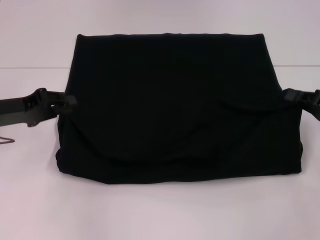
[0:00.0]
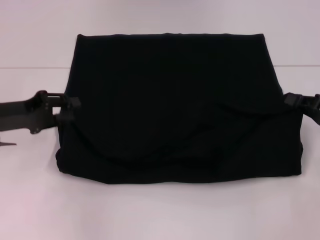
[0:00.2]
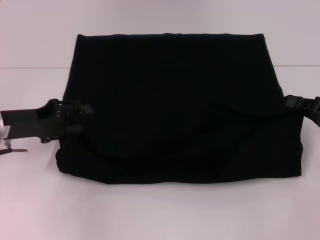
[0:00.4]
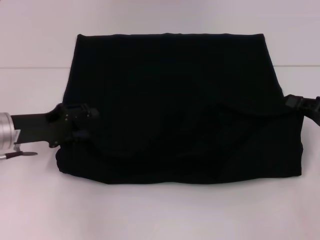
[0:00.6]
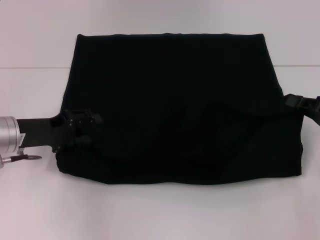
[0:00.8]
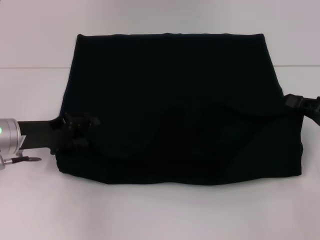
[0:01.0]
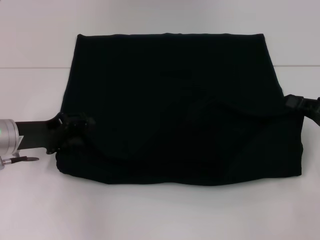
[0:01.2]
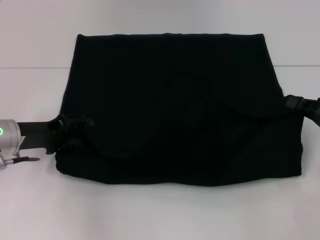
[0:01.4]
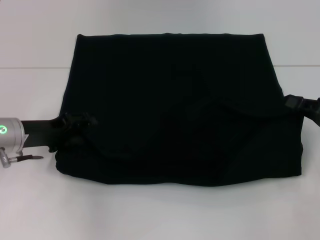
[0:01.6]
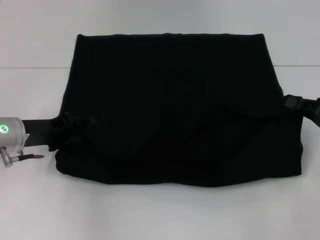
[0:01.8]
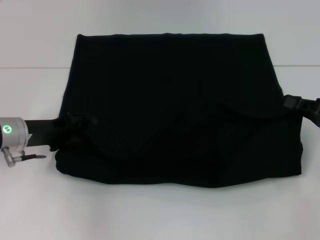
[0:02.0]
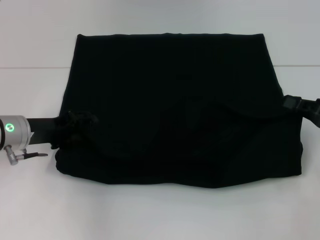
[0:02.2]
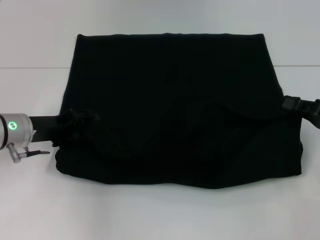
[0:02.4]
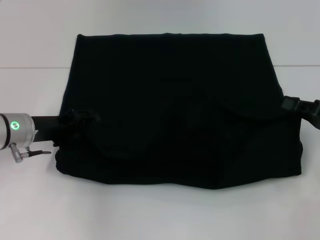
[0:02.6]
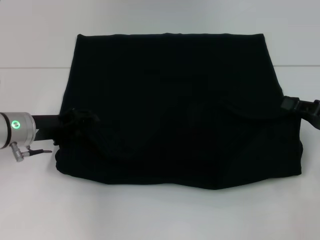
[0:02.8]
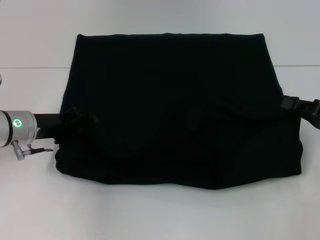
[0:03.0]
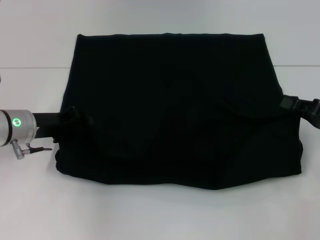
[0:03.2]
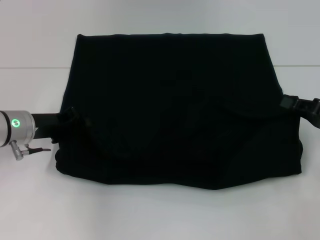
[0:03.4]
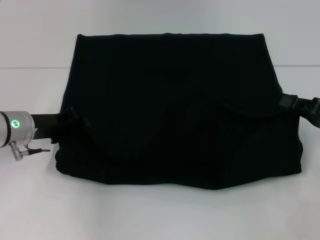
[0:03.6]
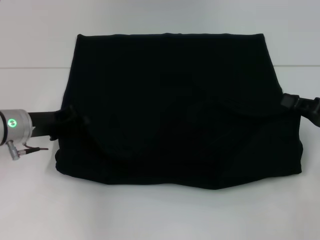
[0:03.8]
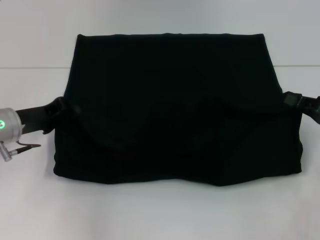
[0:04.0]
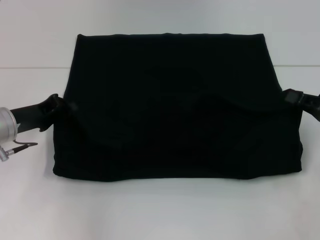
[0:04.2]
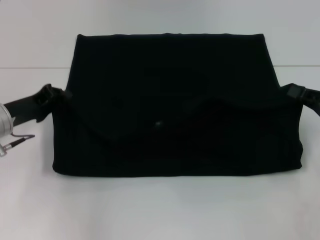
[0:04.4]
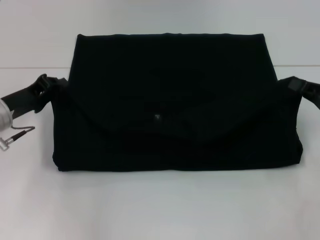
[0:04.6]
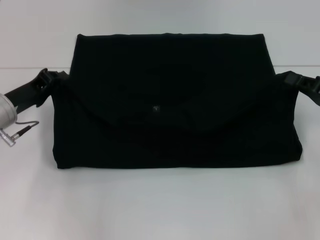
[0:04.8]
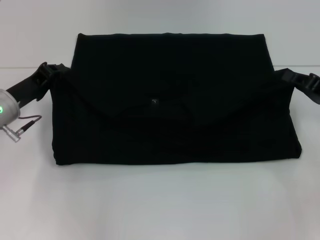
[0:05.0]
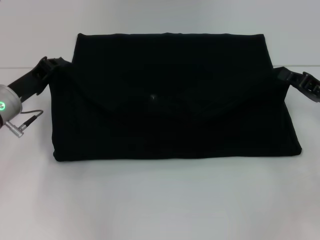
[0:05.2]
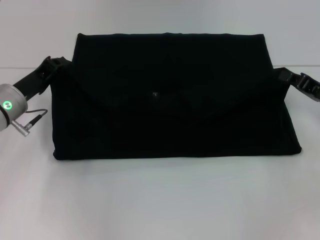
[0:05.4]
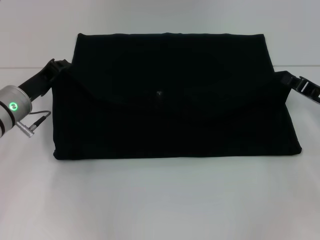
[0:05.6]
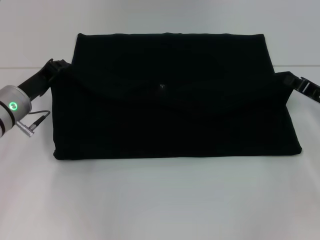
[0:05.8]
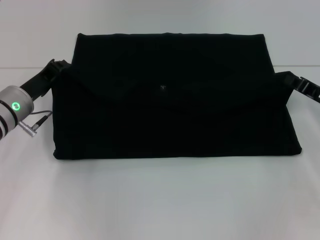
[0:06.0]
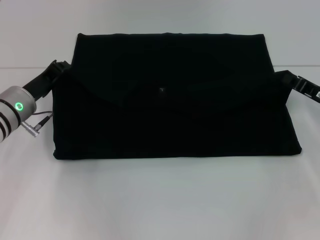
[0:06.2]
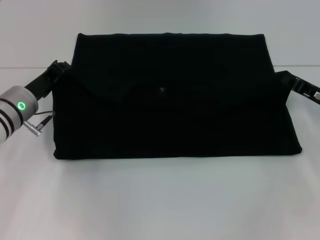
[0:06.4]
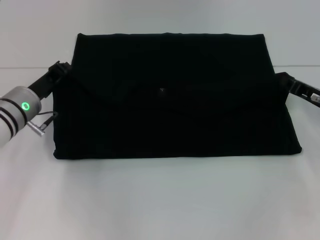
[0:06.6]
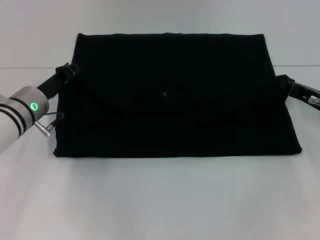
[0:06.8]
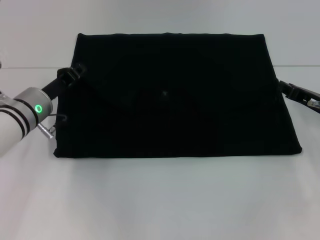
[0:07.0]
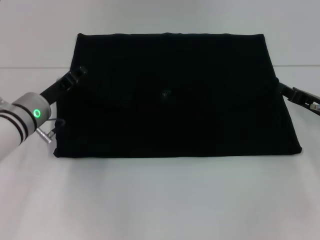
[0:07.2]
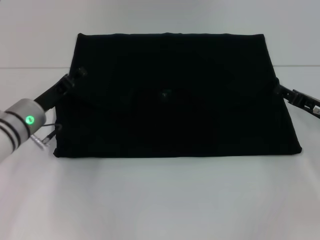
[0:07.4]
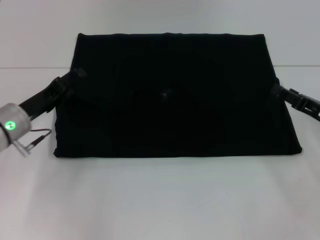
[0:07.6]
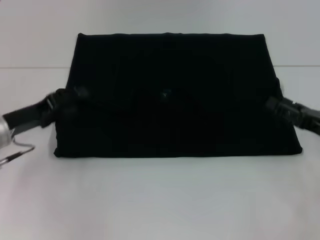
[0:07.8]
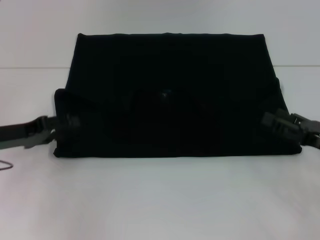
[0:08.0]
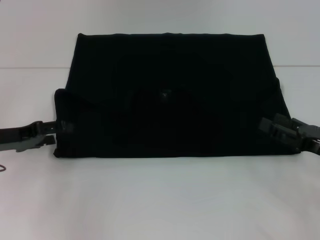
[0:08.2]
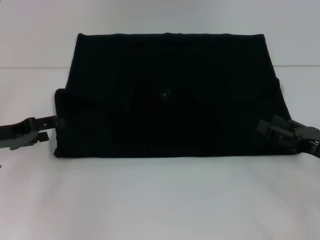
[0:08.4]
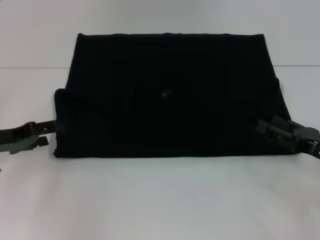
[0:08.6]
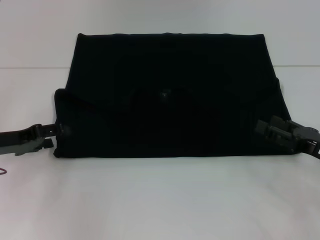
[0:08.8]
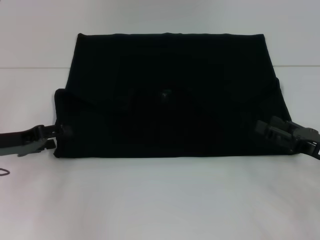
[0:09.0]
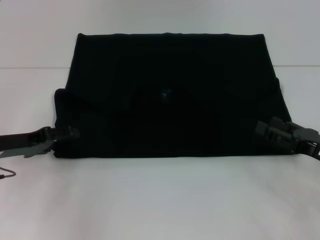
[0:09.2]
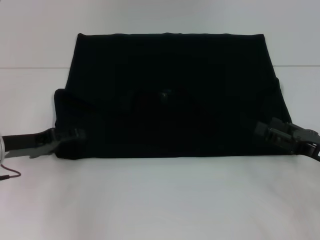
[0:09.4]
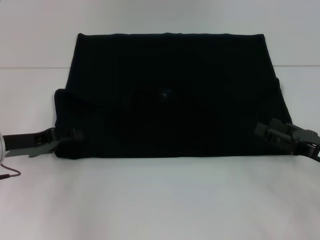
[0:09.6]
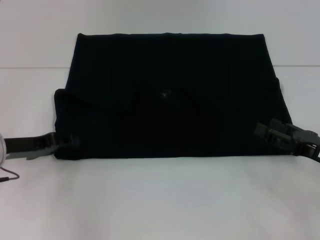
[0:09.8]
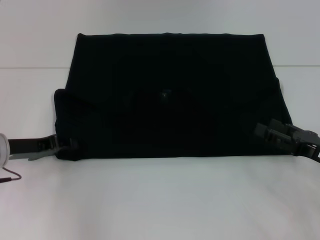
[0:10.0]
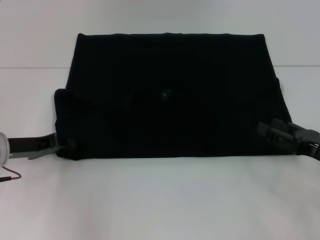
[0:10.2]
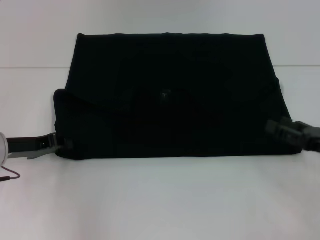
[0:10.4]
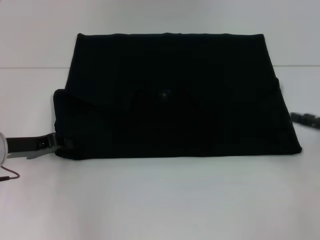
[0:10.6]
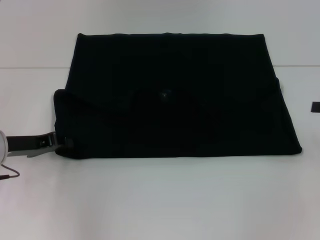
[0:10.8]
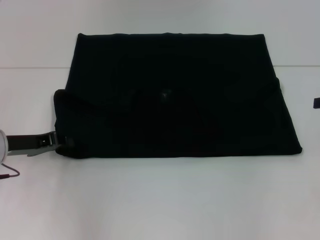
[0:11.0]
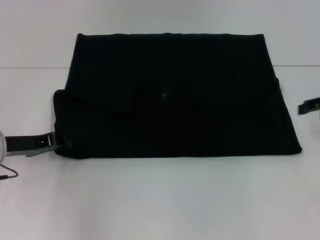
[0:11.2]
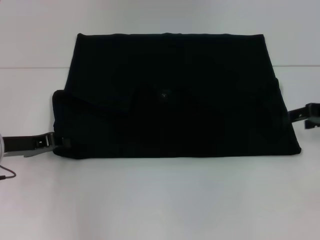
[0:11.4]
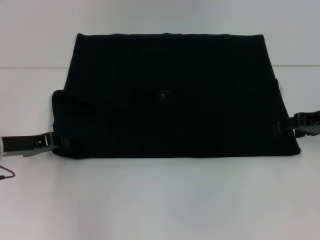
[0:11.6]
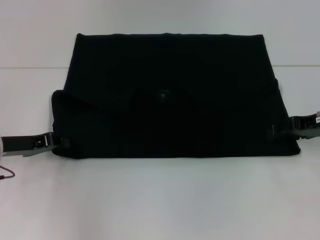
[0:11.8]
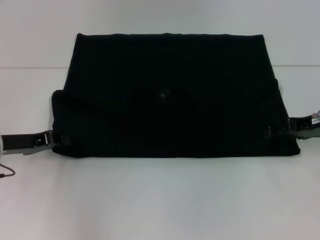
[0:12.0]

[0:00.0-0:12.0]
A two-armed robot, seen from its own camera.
Step, 0:00.0 to 0:07.6: Fold the clothes with your left hand.
Step, 0:00.0 to 0:07.6: Fold the clothes with your right hand.
0:00.0 to 0:01.6: The left gripper changes place by roughly 5 cm, and opens its fingers.
0:01.6 to 0:03.0: The grippers stay close to where they were, moving slightly.
0:03.0 to 0:04.4: The left gripper closes.
0:04.4 to 0:06.0: The right gripper shifts by some 5 cm.
0:06.0 to 0:07.6: The left gripper opens up; the right gripper opens.
0:07.6 to 0:09.0: The left gripper heads to the left, covering approximately 5 cm, while the right gripper goes some 5 cm backward.
0:09.0 to 0:10.4: The left gripper closes its fingers.
0:10.4 to 0:12.0: The right gripper goes about 10 cm forward and upward.

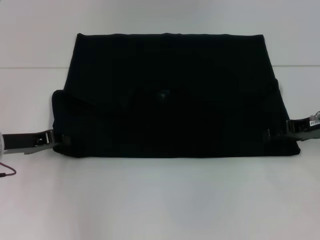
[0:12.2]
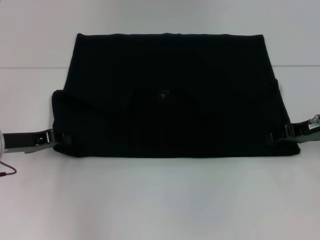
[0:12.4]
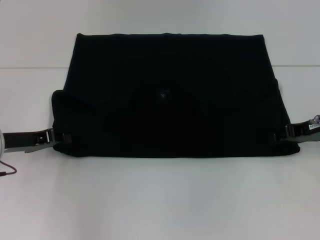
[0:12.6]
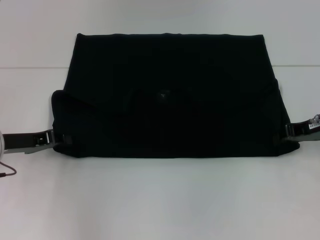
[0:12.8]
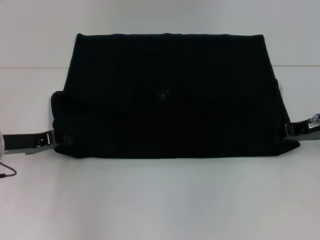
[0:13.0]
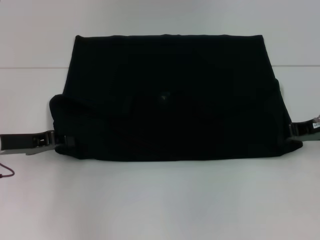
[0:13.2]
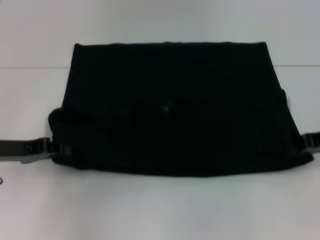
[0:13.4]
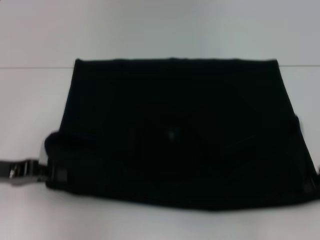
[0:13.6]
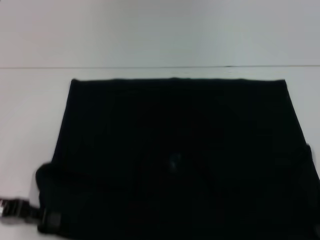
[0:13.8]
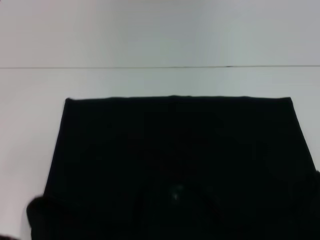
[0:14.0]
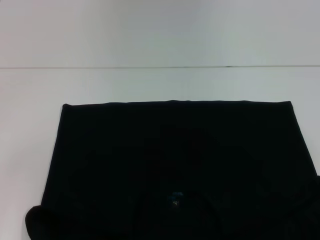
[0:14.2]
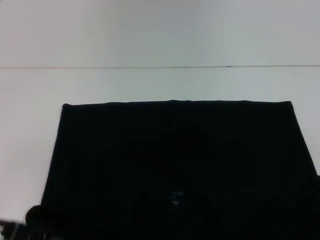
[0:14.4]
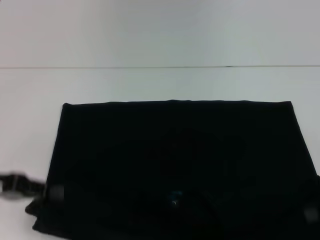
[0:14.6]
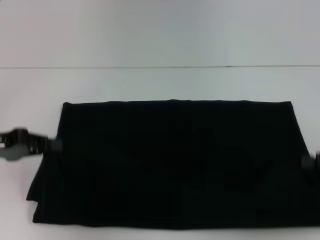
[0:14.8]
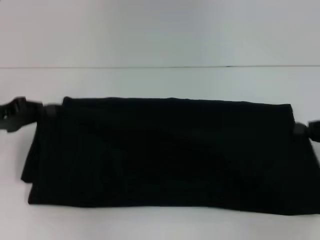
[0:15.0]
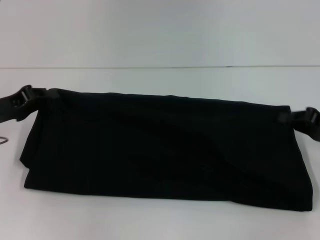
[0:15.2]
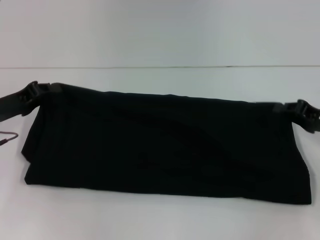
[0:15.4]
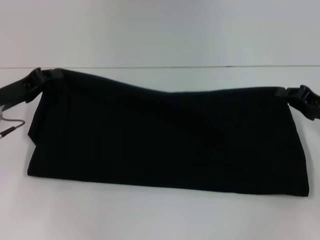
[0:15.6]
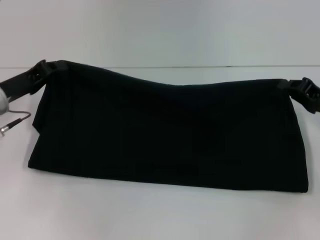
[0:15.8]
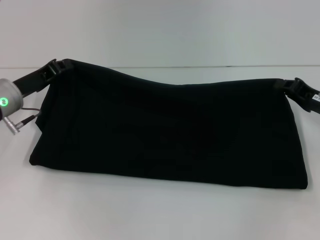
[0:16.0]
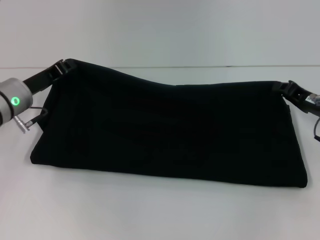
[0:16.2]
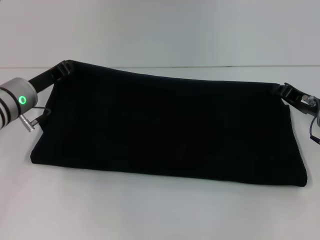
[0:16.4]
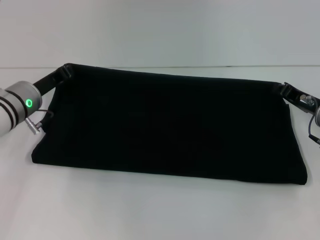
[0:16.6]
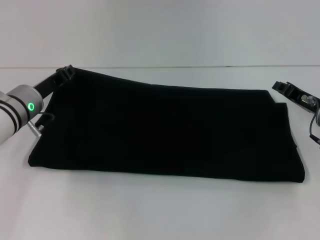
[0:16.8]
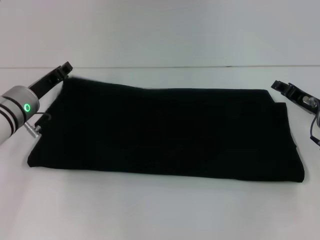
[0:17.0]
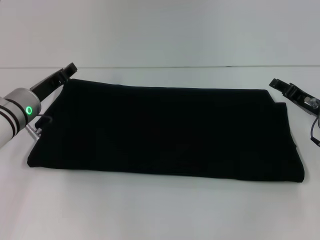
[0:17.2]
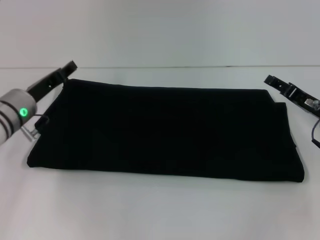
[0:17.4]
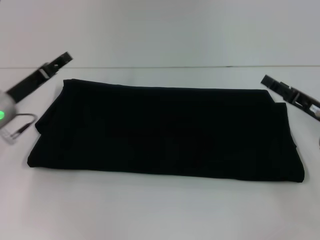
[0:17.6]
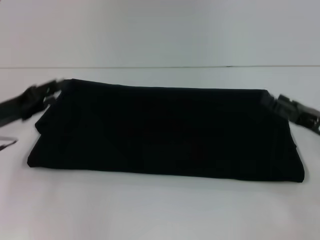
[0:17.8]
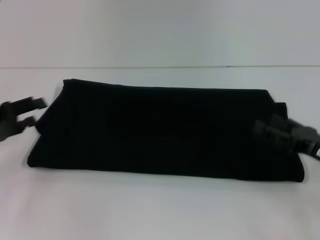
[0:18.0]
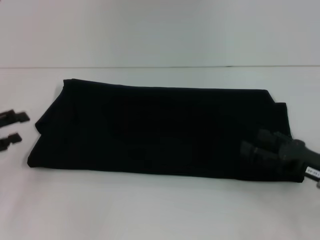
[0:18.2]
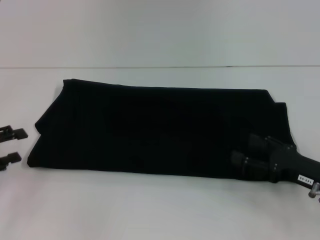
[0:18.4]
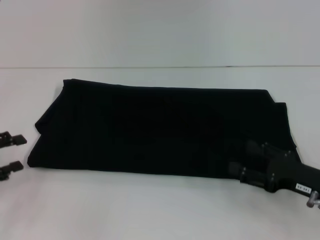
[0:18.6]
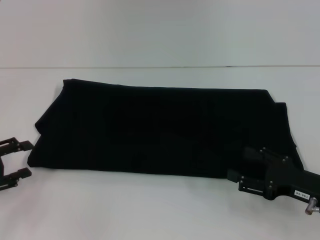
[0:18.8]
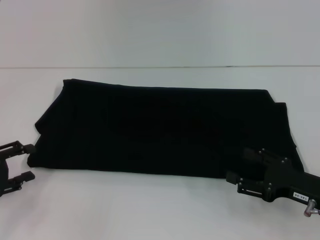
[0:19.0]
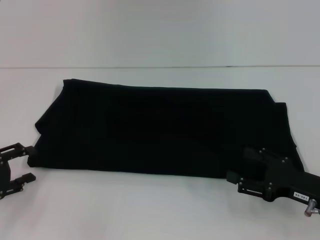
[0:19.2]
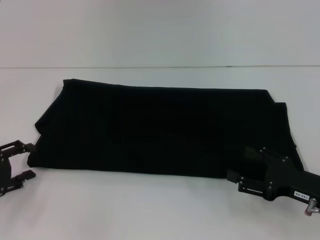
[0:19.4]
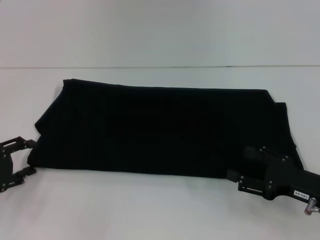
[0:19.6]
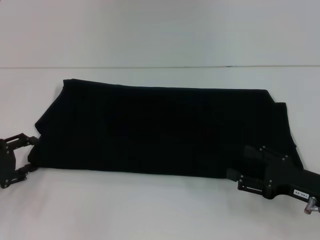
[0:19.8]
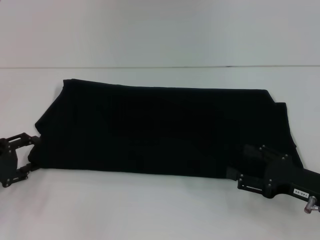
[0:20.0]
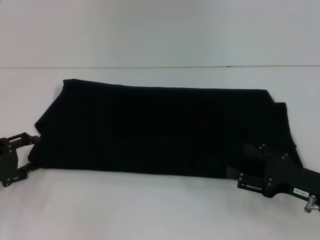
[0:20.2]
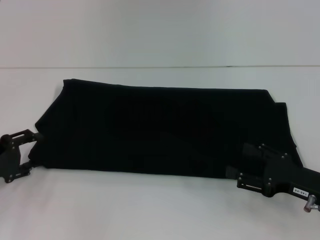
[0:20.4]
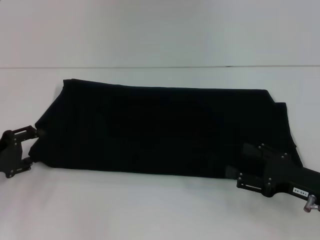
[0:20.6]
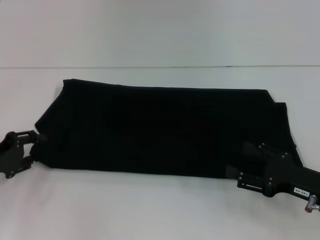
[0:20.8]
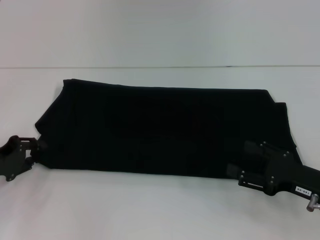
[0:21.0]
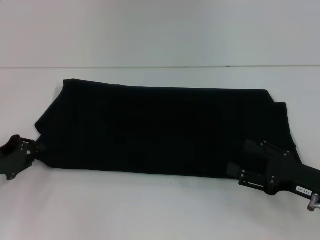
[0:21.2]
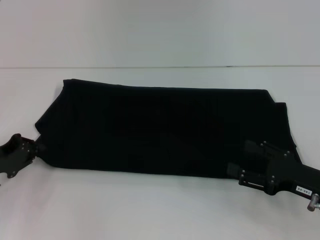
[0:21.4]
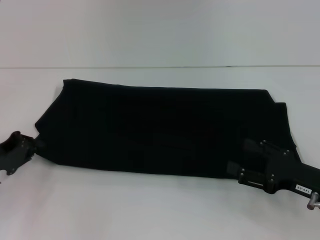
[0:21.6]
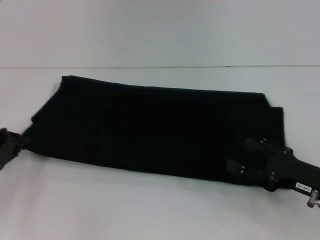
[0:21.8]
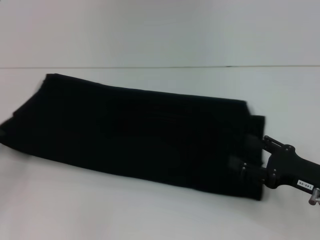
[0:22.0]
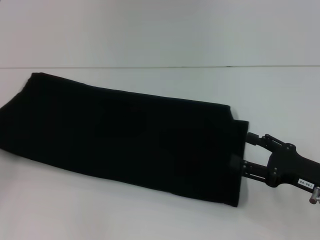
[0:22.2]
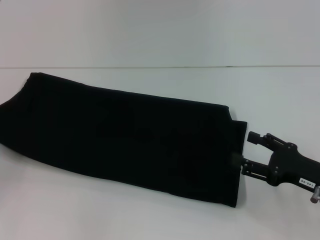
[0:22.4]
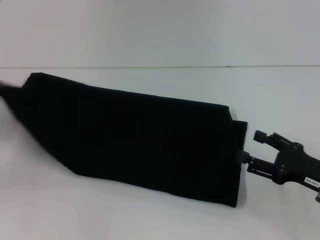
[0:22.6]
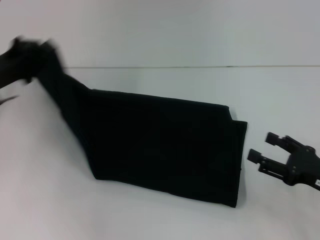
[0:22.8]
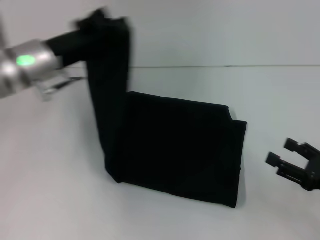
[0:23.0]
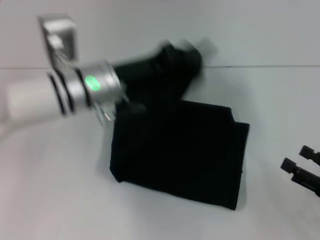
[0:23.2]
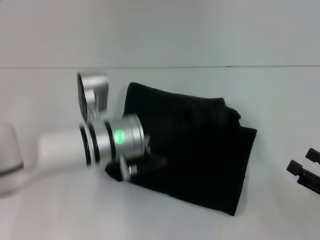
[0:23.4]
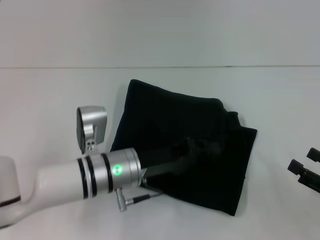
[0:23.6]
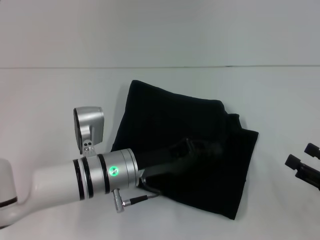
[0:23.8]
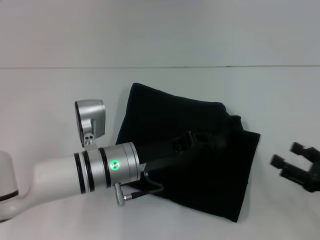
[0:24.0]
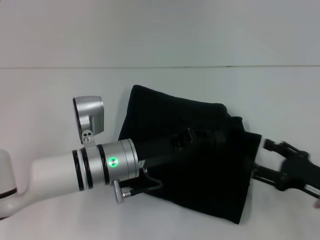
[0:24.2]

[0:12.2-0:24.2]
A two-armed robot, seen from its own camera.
Step, 0:14.2 to 0:17.0: Fold the clothes with your right hand.
0:12.2 to 0:13.8: The grippers both shift backward by about 10 cm. The right gripper closes its fingers.
0:13.8 to 0:15.2: The left gripper heads forward, covering about 10 cm.
0:15.2 to 0:16.6: The left gripper goes roughly 10 cm to the right and forward, while the right gripper goes about 10 cm to the left and forward.
0:16.6 to 0:18.2: The right gripper shifts roughly 10 cm backward, and opens its fingers. The left gripper travels to the left and backward by some 20 cm, and opens.
0:18.2 to 0:19.8: The left gripper ends up some 5 cm from where it was.
0:19.8 to 0:21.2: The left gripper closes.
0:21.2 to 0:22.6: The left gripper moves upward, approximately 5 cm.
0:22.6 to 0:24.2: The left gripper heads to the right, covering some 25 cm.
